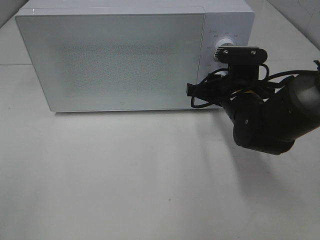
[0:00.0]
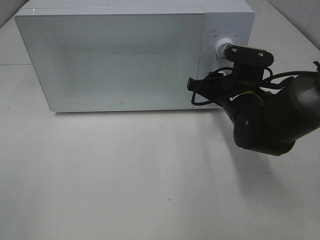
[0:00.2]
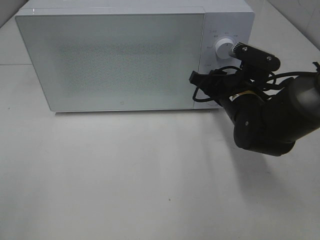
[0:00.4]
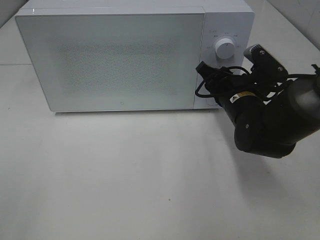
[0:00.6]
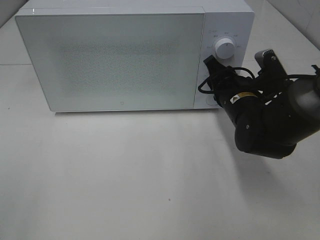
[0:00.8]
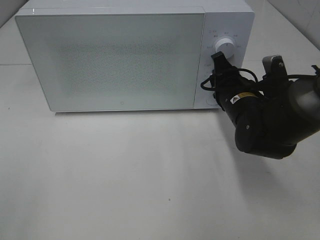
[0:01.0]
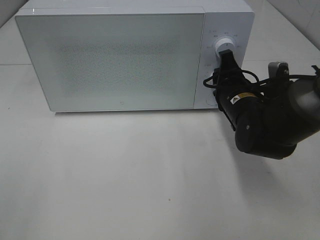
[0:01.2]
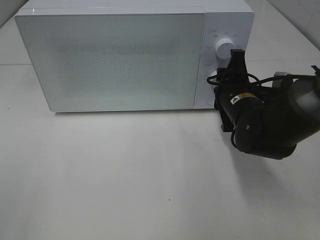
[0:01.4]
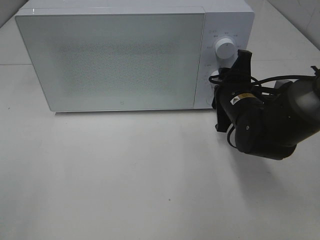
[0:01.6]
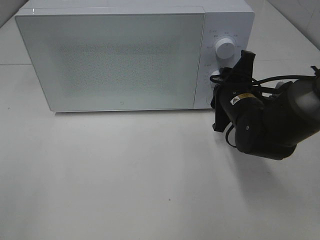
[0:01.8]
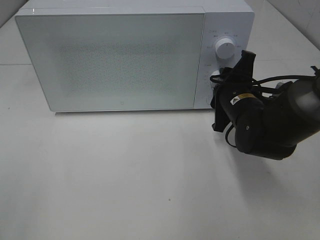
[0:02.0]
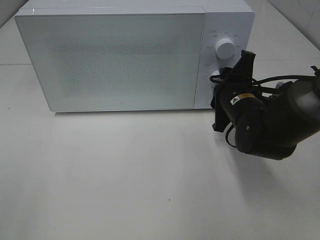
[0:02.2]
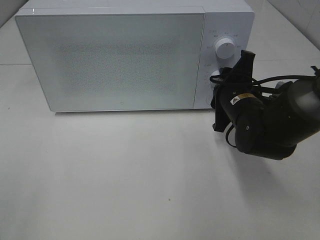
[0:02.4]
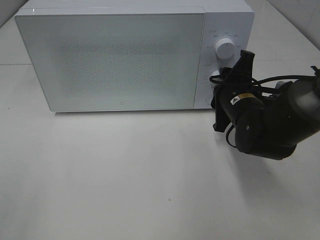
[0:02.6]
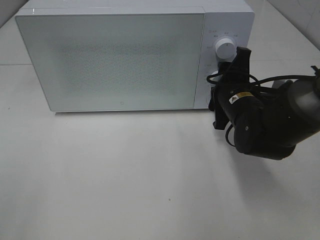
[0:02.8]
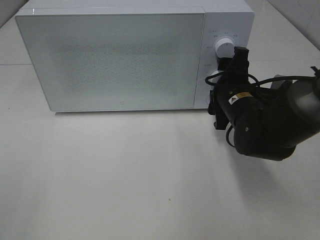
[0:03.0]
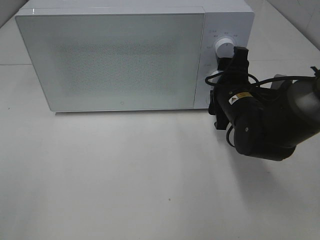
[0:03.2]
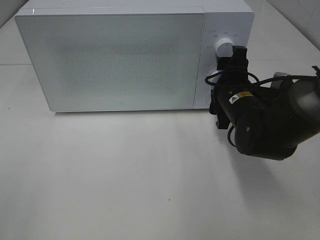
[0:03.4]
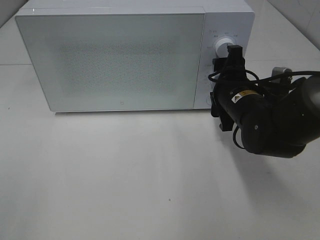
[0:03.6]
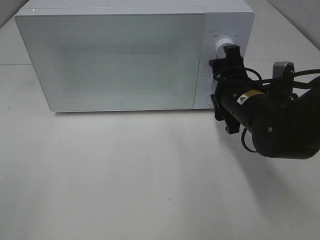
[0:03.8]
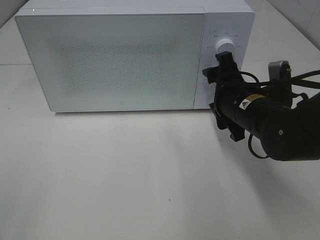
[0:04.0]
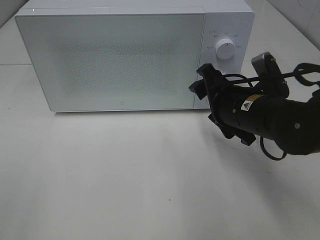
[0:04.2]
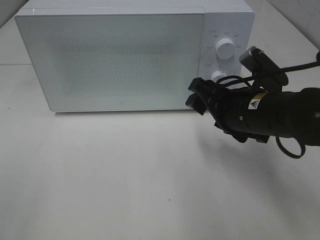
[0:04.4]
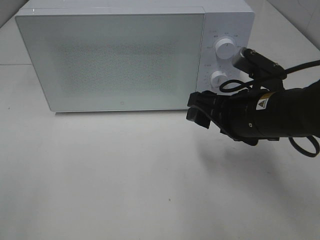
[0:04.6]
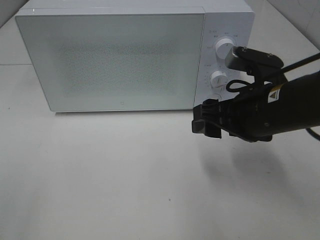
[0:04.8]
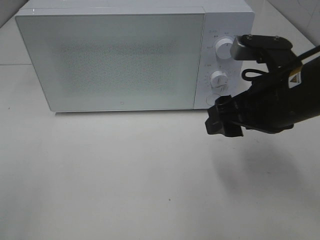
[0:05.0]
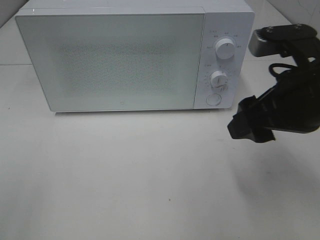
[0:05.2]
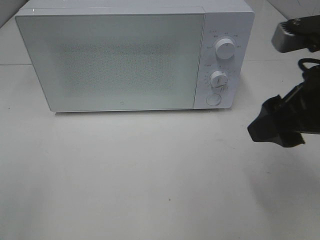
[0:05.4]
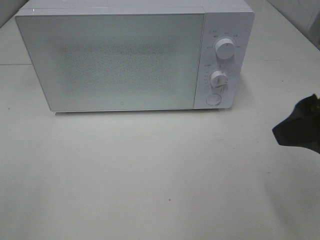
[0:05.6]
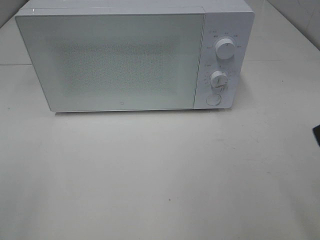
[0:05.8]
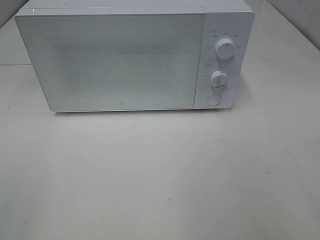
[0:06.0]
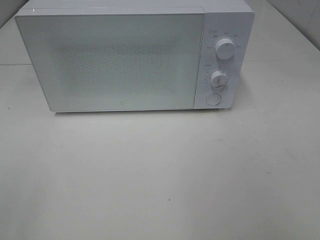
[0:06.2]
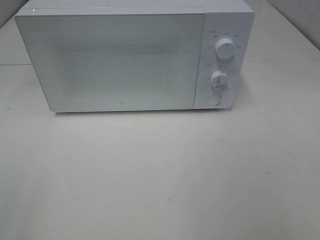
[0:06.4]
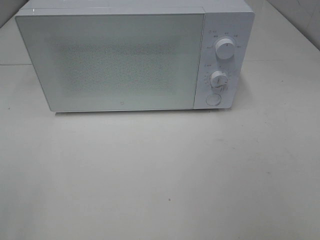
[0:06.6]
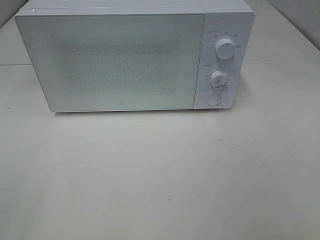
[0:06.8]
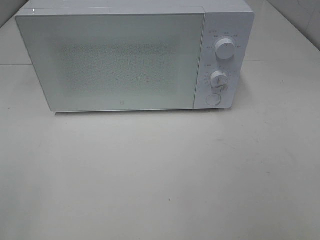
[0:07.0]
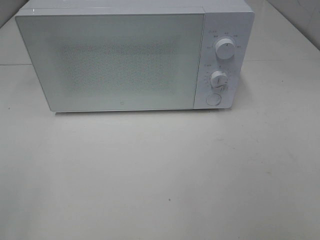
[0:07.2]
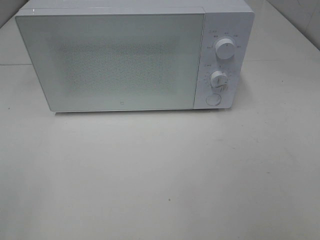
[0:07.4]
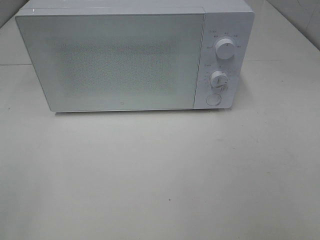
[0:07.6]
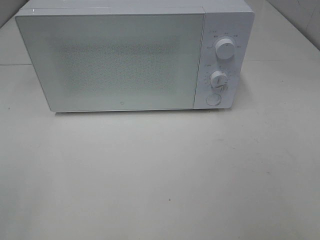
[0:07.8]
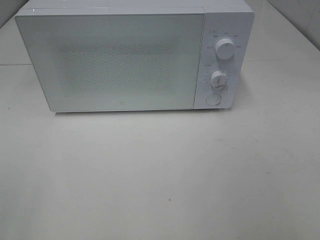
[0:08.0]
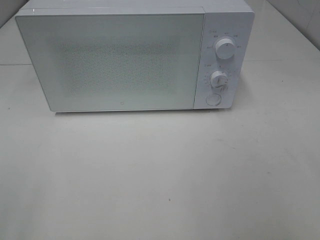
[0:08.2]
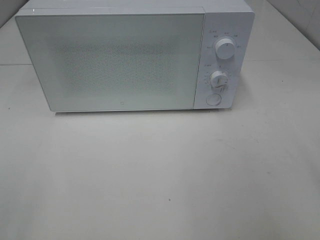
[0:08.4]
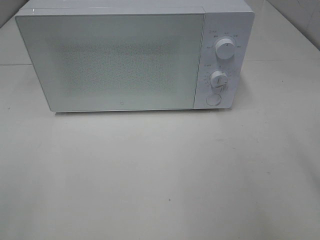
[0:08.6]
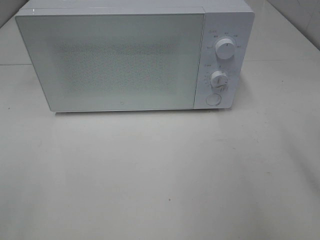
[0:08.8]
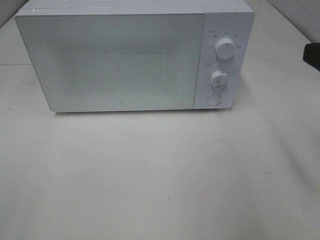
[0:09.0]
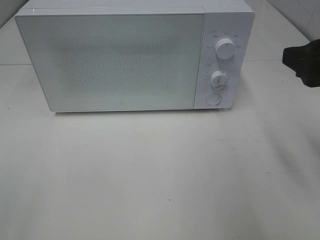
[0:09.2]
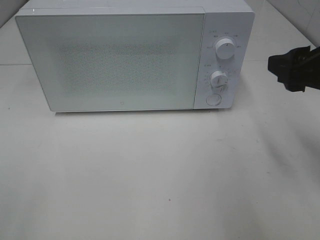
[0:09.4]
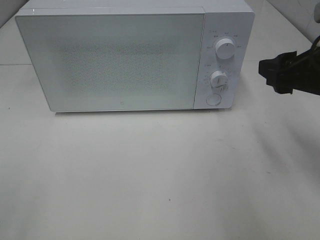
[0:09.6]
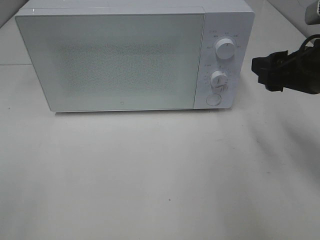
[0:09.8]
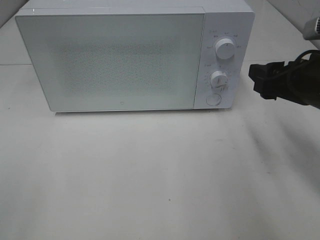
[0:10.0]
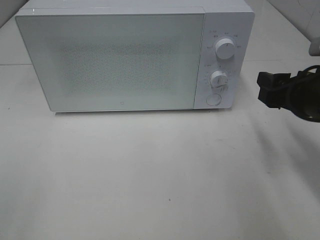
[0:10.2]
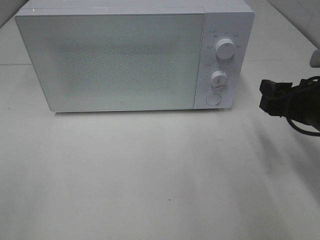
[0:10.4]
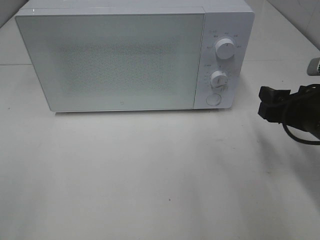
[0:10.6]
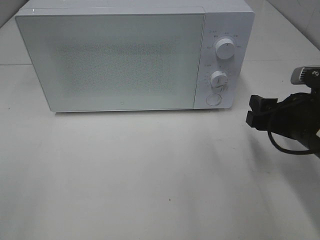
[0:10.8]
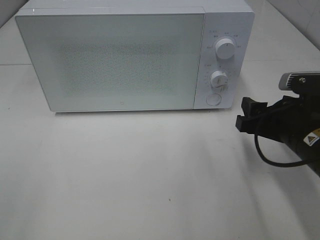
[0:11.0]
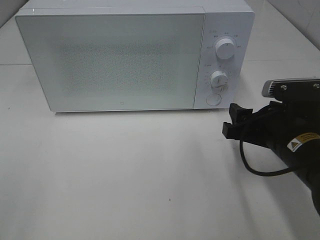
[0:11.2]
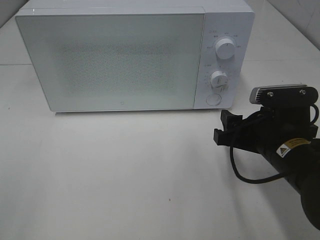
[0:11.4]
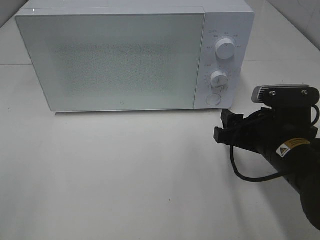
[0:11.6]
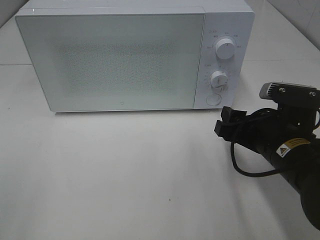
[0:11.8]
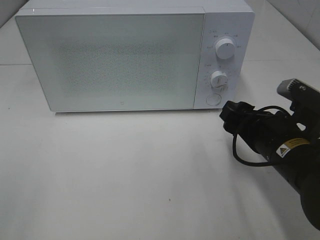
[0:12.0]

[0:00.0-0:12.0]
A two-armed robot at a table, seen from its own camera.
Task of the whole recording: Heat Sandwich.
Step, 0:00.0 to 0:04.0: Right hand: twist timer button.
0:01.6 to 0:03.0: Neither gripper changes place.
0:03.0 to 0:04.4: The right gripper is displaced backward by approximately 5 cm.
0:04.4 to 0:06.0: The right gripper goes about 25 cm backward, upward and to the right.
0:09.0 to 0:10.4: The right gripper travels downward and forward by approximately 15 cm.
0:10.4 to 0:12.0: The right gripper is displaced to the left by roughly 5 cm.

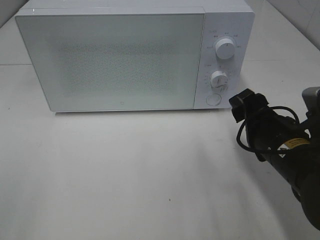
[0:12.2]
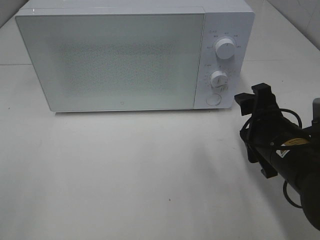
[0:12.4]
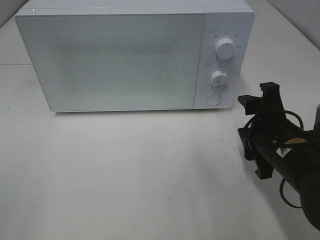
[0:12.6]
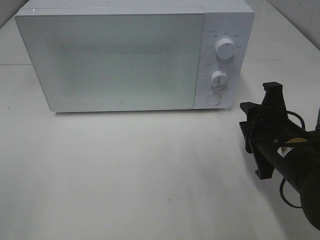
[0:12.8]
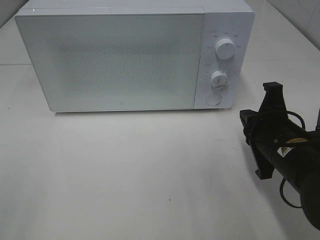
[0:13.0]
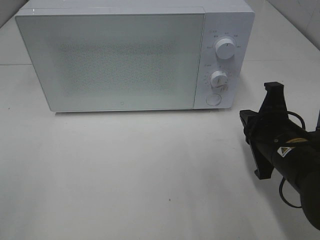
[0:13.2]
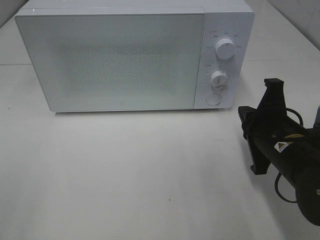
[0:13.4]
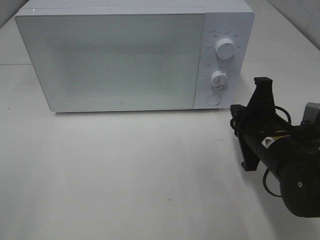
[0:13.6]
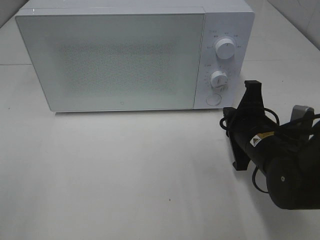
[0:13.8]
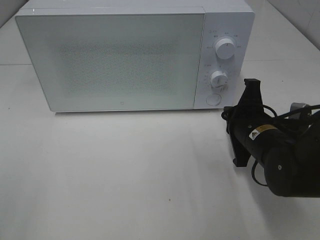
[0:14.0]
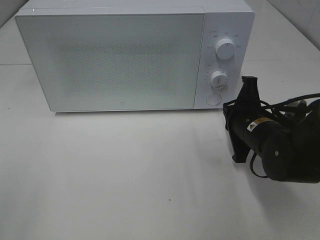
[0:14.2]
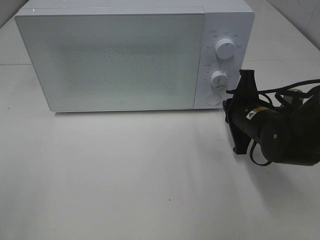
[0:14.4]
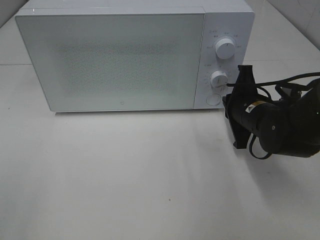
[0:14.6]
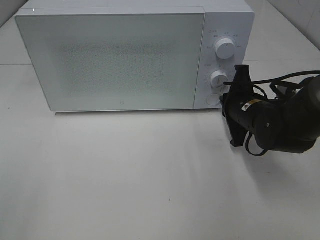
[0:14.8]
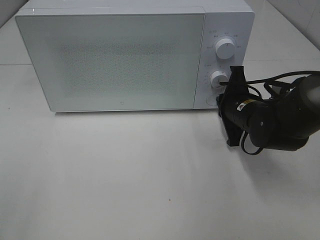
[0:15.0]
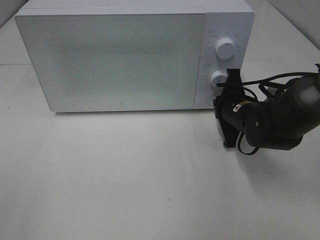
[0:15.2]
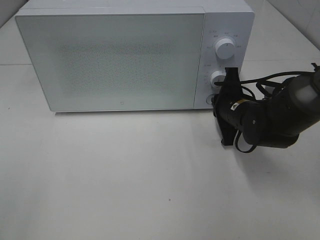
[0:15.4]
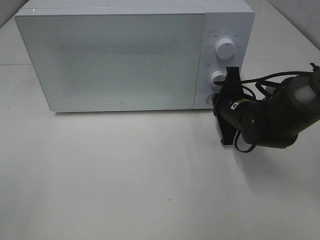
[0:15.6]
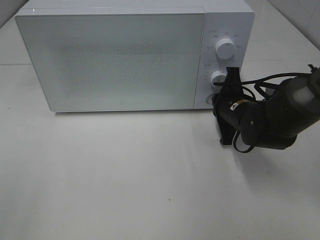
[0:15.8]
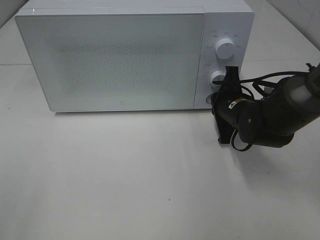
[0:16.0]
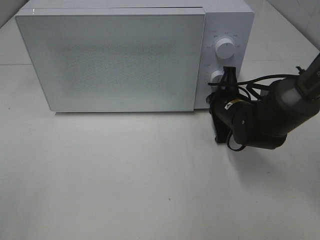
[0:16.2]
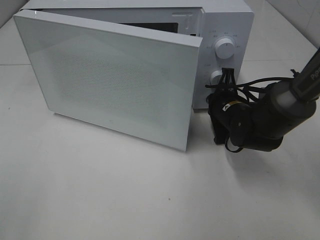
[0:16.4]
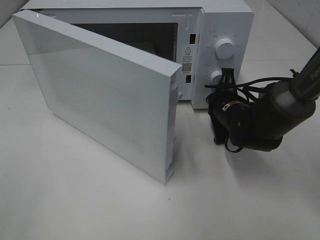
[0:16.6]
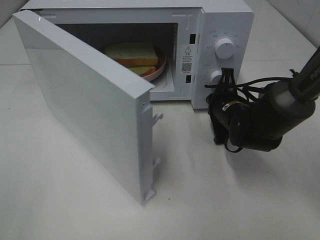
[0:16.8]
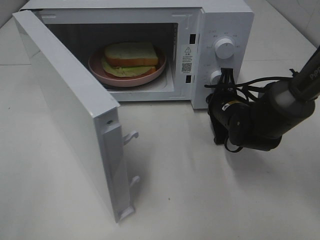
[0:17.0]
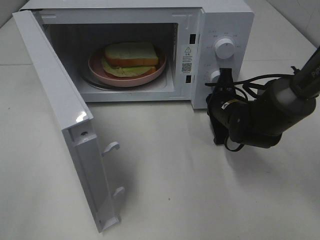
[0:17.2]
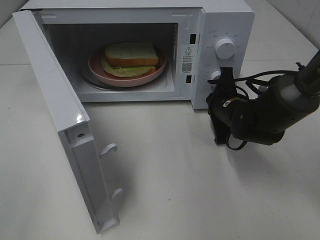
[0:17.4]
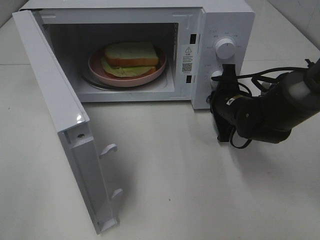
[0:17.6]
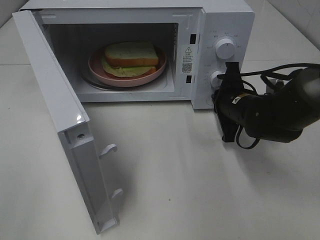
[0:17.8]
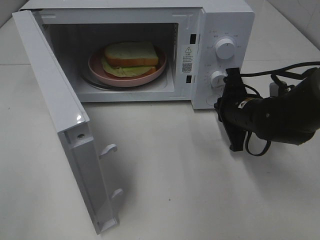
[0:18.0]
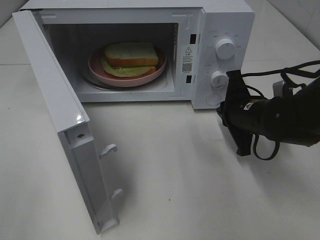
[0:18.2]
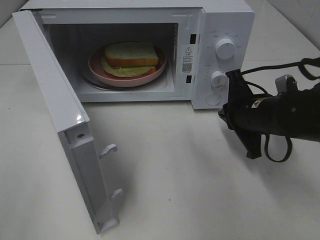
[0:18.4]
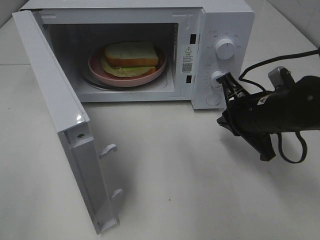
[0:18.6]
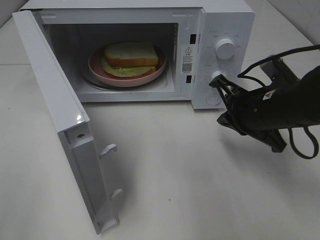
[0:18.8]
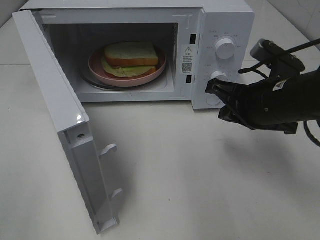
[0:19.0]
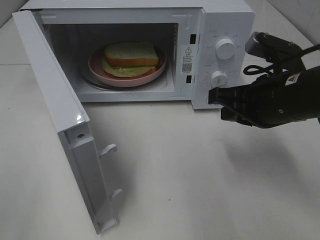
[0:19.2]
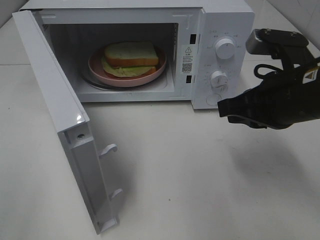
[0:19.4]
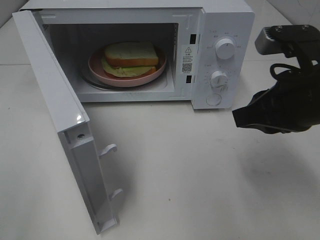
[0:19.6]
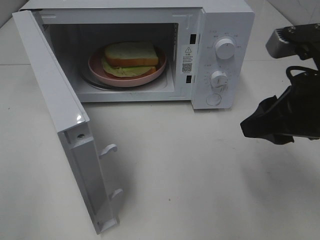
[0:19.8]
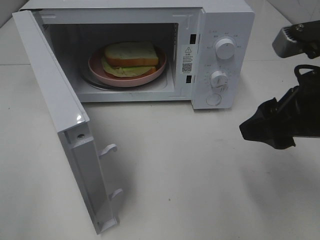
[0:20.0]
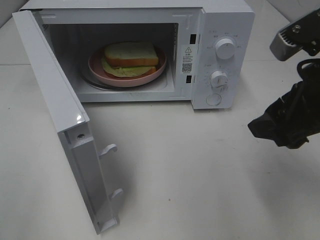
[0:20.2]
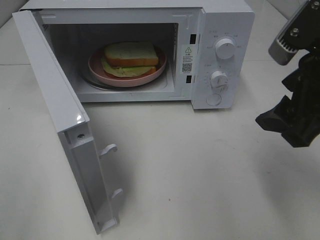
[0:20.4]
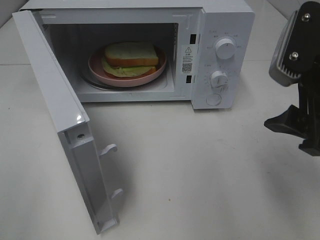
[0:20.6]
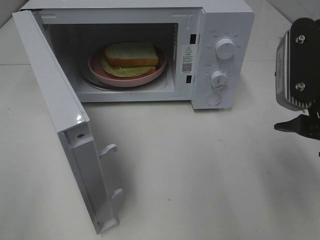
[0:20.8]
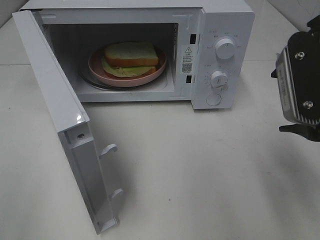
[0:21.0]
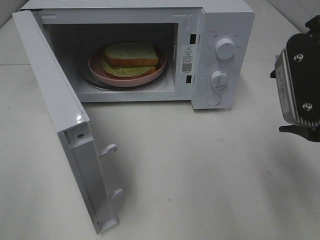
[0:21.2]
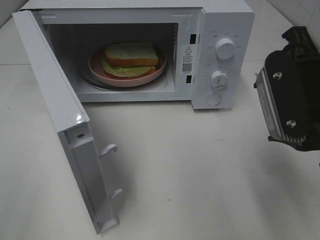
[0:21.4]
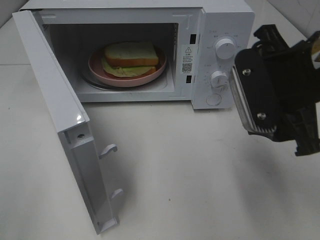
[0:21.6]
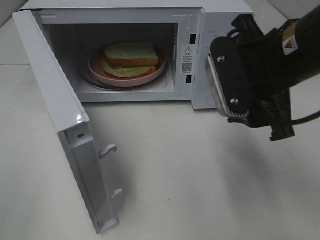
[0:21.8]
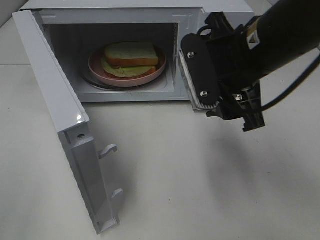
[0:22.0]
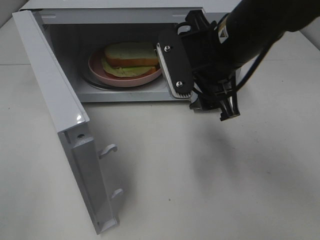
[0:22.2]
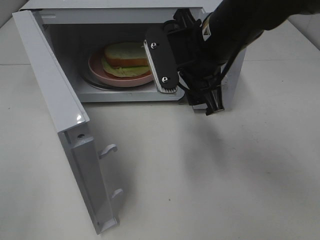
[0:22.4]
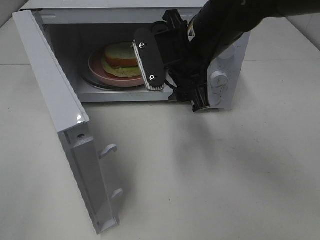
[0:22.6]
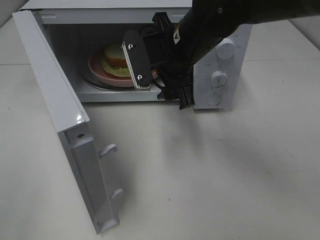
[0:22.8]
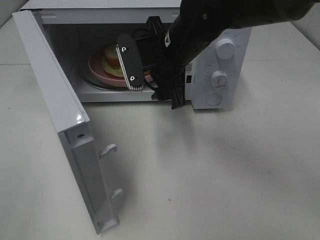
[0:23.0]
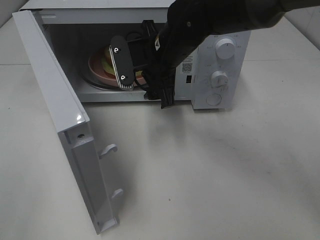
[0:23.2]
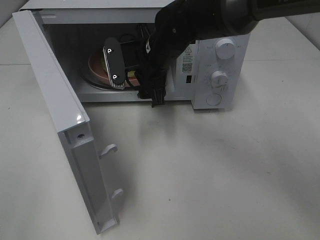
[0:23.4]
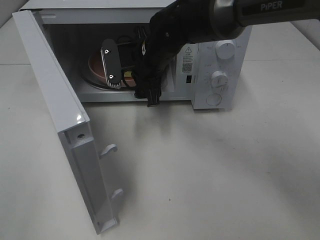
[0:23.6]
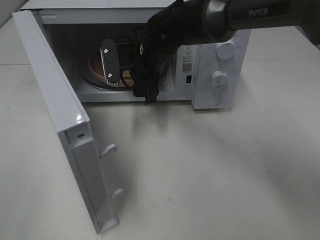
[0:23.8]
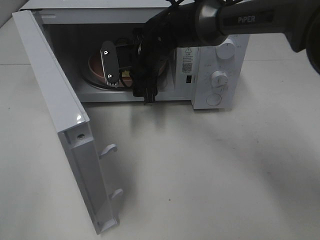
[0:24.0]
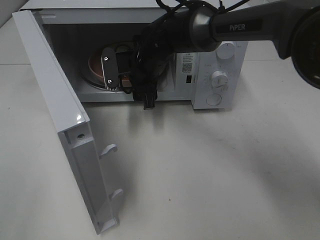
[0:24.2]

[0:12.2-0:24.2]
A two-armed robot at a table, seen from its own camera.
Task of the whole recording: Heat Sandwich.
Step, 0:12.2 to 0:17.8: Right hand: press the switch.
0:12.2 to 0:13.8: The right gripper closes its fingers.
0:13.8 to 0:15.2: The right gripper heads forward, covering approximately 10 cm.
0:16.6 to 0:18.2: The right gripper ends up some 5 cm from where it was.
0:18.2 to 0:19.8: The right gripper goes approximately 20 cm upward and backward, and opens its fingers.
0:21.2 to 0:22.6: The right gripper is displaced to the left and forward by approximately 20 cm.
0:22.6 to 0:24.2: The right gripper travels forward, downward and to the left by some 15 cm.
